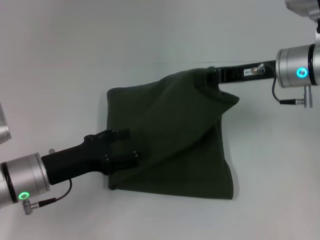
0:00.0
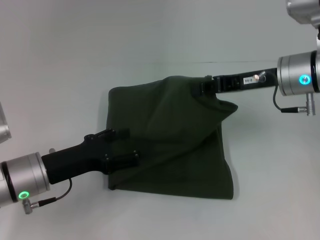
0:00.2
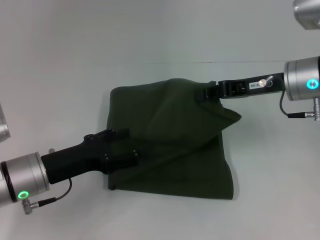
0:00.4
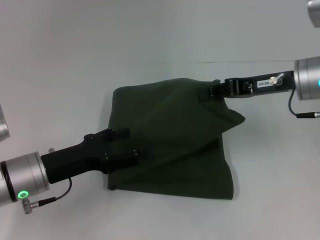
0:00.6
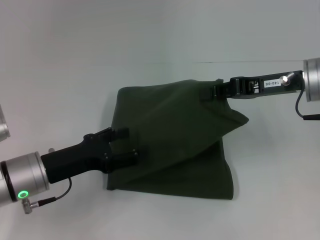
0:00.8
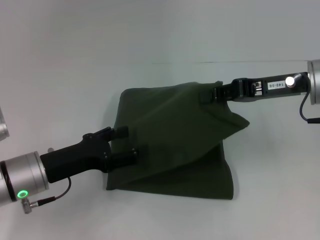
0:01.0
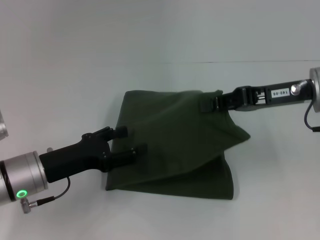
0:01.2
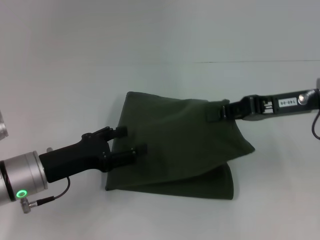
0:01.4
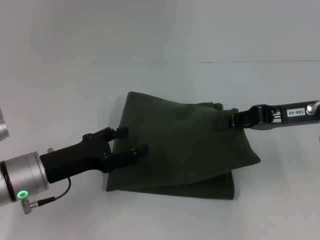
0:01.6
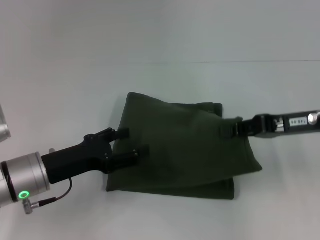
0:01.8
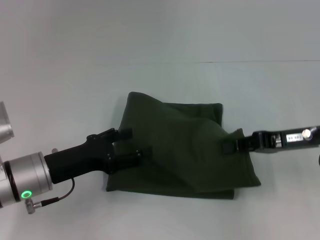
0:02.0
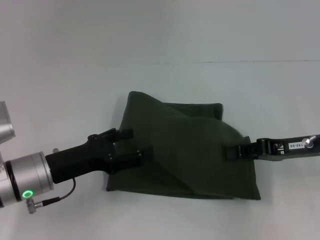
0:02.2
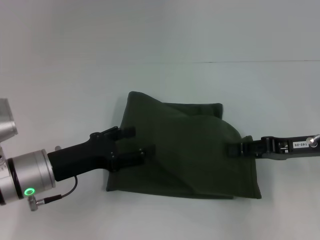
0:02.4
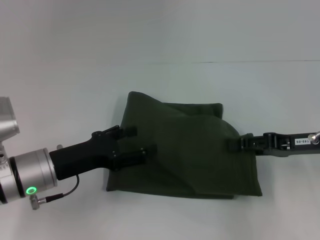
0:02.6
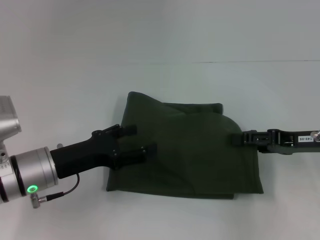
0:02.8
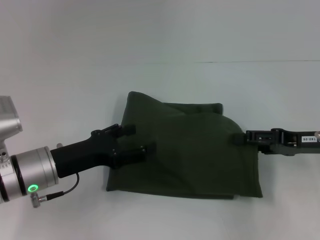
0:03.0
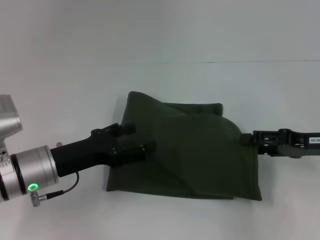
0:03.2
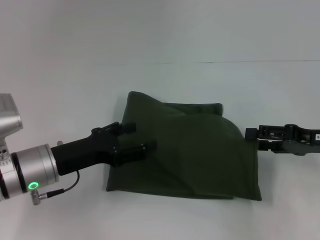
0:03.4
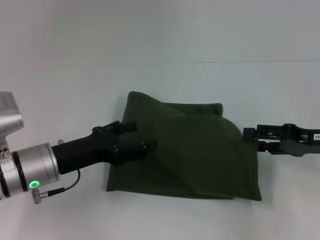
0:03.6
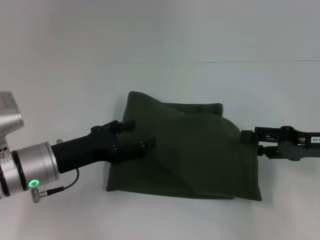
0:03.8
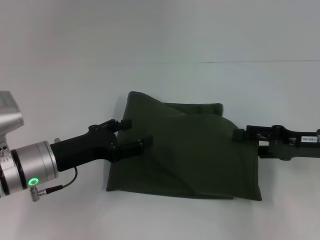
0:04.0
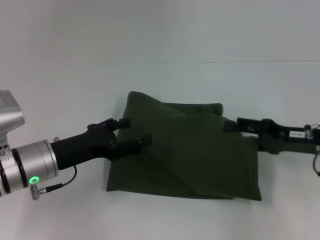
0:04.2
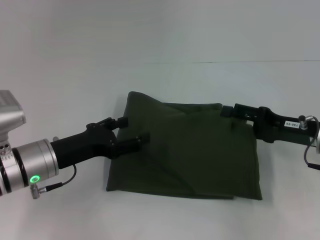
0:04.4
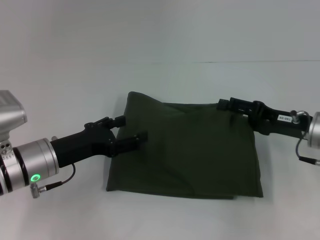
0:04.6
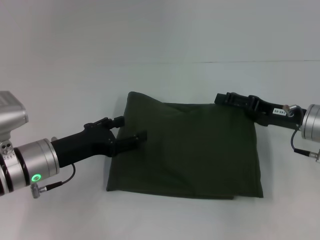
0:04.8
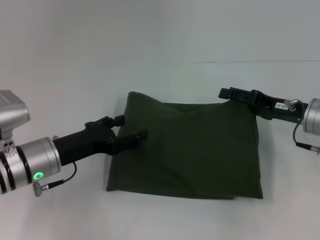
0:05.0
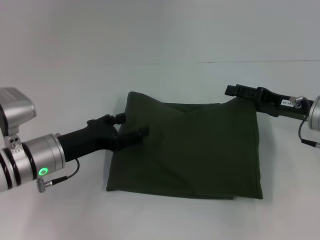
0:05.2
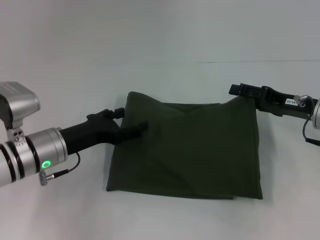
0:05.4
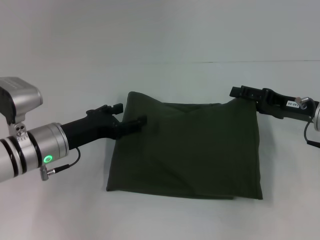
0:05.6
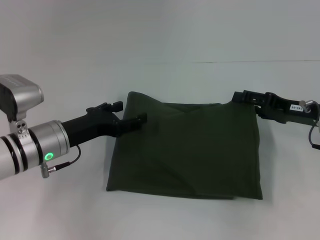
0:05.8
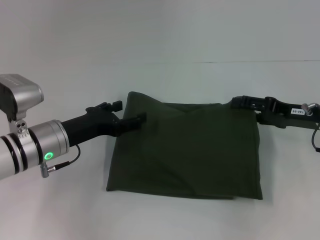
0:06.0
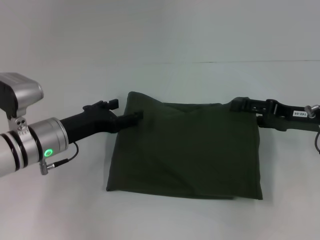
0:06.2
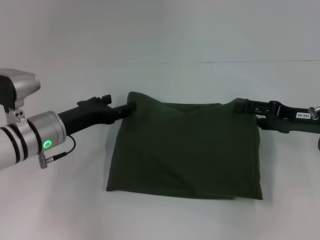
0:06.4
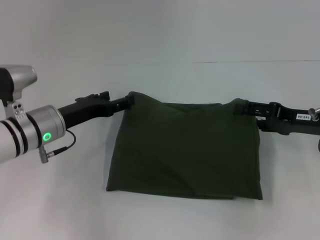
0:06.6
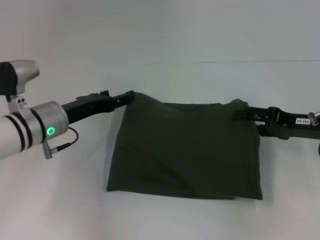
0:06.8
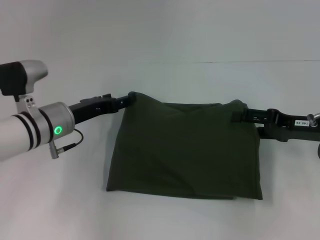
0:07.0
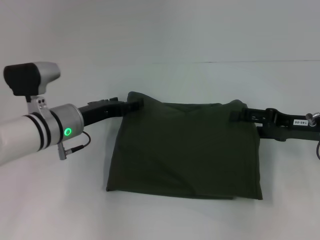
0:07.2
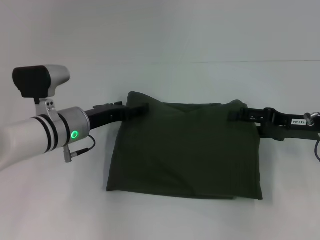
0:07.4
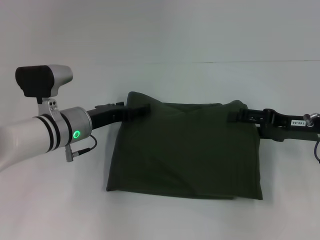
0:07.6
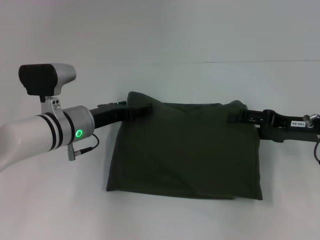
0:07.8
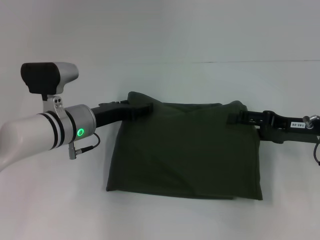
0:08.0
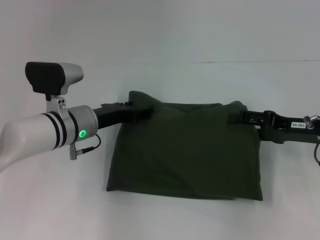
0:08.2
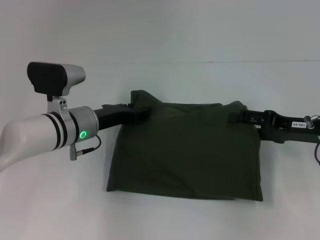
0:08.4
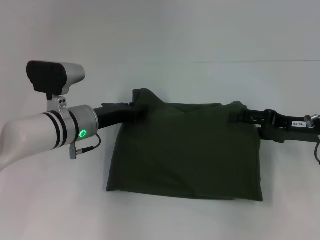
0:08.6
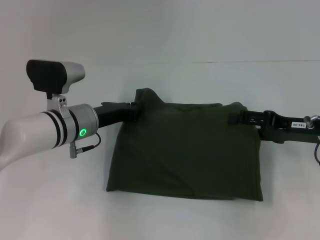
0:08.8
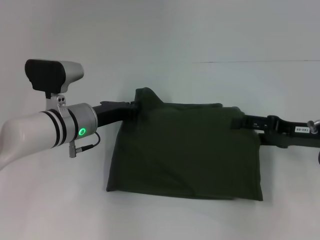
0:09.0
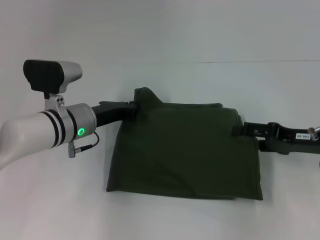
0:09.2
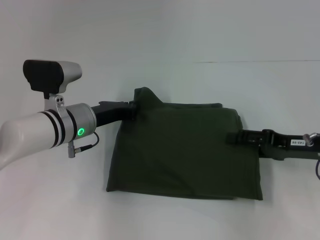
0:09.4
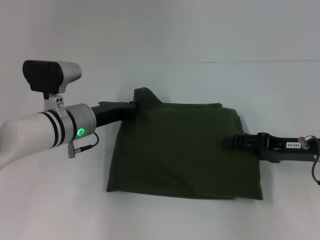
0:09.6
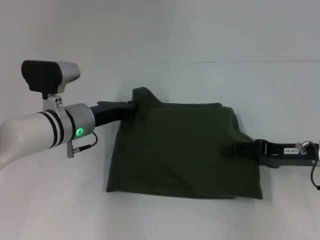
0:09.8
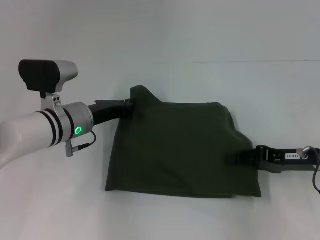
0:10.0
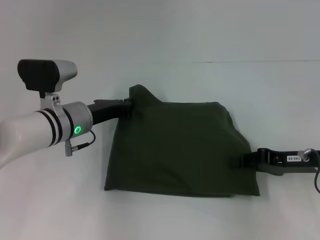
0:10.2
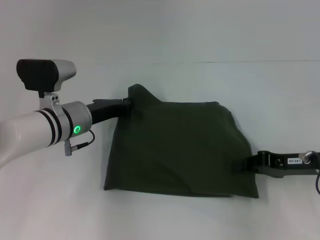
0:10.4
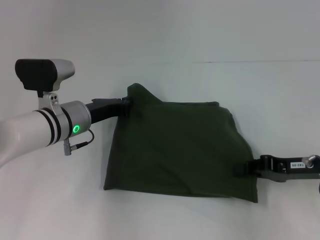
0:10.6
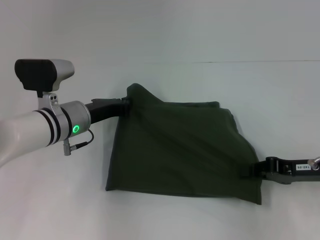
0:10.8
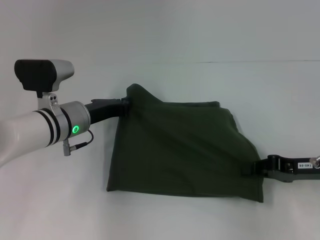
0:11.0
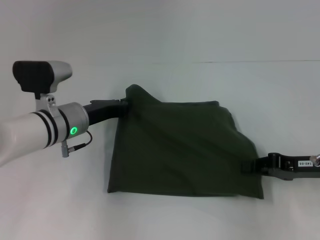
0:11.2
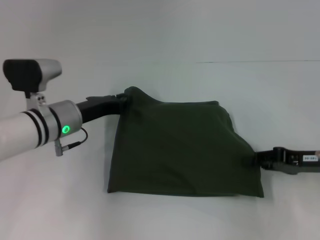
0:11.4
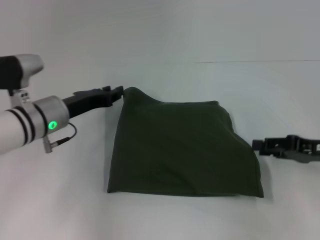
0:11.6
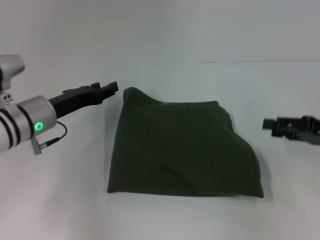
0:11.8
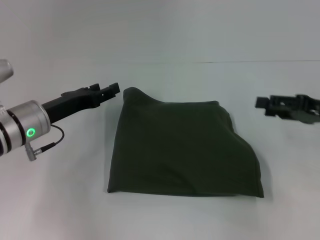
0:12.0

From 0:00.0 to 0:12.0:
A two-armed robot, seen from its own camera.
From 0:00.0 to 0:01.6: The right gripper moves backward, some 5 cm.
From 0:01.6 to 0:03.0: The right gripper is displaced downward by roughly 5 cm, and opens its fingers.
From 0:03.0 to 0:06.0: The grippers stay close to where they were, moving slightly.
From 0:06.0 to 0:07.6: The left gripper ends up some 5 cm from where it was.
From 0:07.6 to 0:09.0: The left gripper closes its fingers.
From 0:09.0 to 0:10.4: The right gripper closes up.
From 0:10.4 to 0:12.0: The right gripper heads upward, covering about 5 cm, and opens. The left gripper is displaced to the left by about 5 cm, and opens.

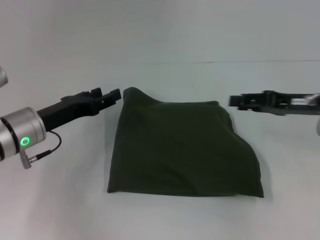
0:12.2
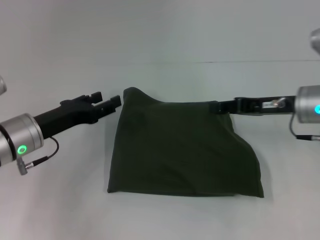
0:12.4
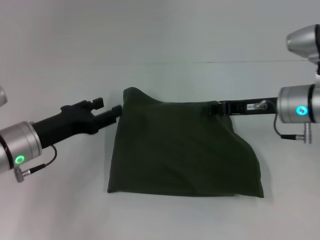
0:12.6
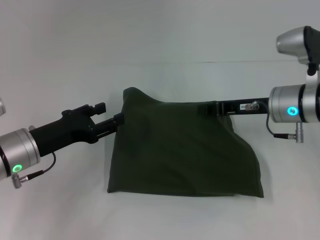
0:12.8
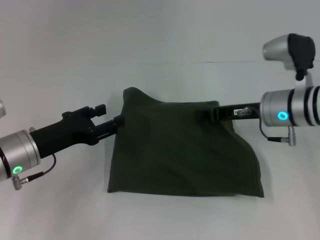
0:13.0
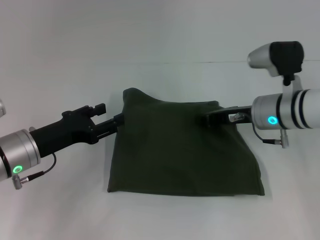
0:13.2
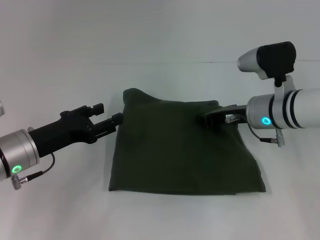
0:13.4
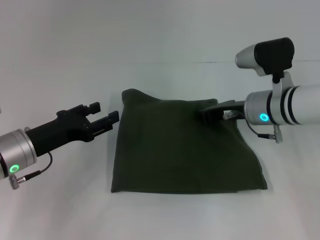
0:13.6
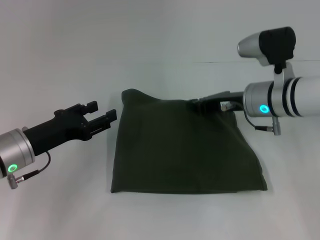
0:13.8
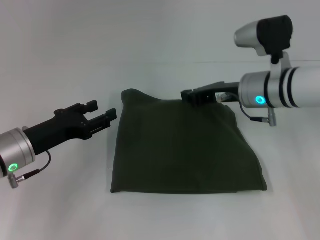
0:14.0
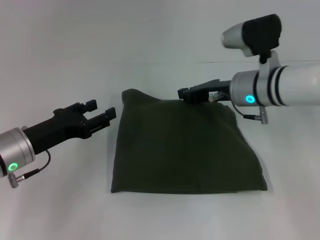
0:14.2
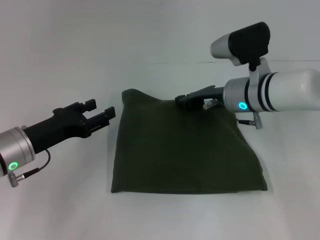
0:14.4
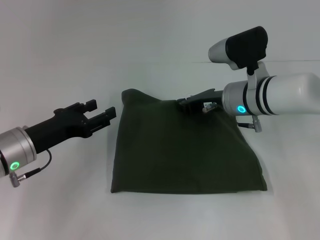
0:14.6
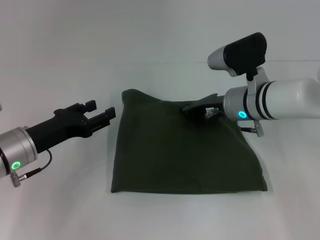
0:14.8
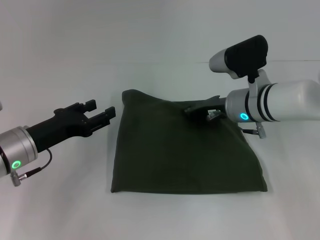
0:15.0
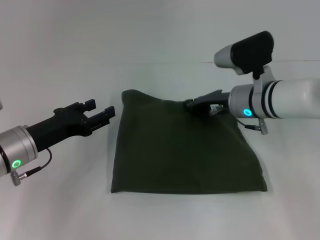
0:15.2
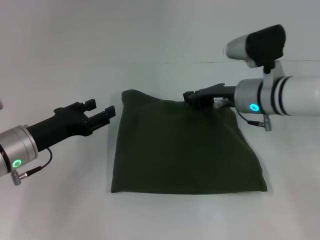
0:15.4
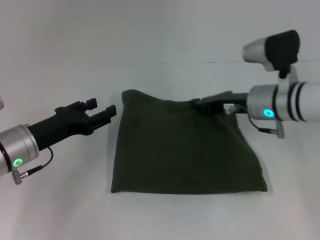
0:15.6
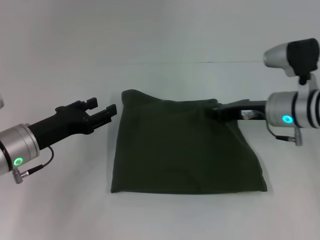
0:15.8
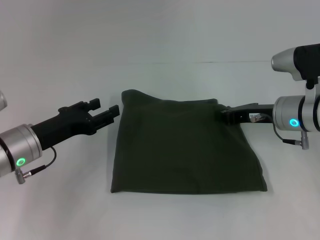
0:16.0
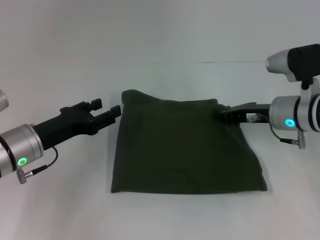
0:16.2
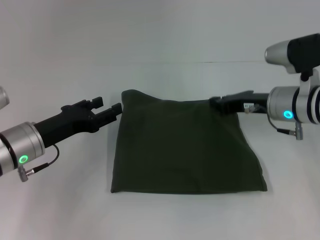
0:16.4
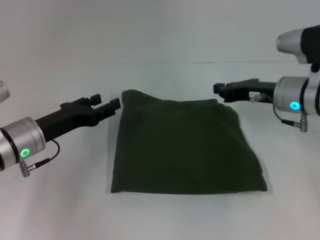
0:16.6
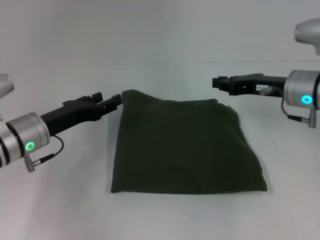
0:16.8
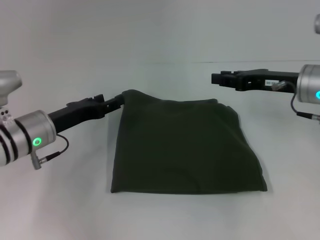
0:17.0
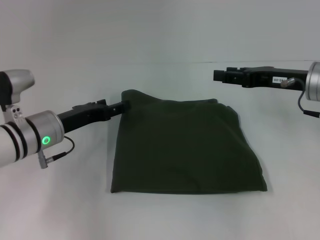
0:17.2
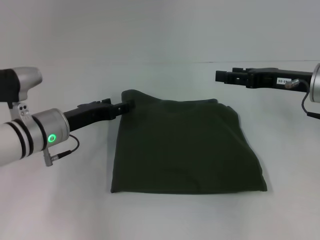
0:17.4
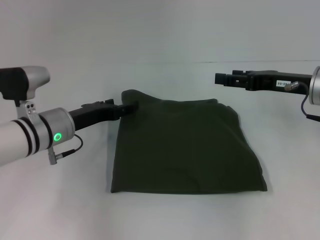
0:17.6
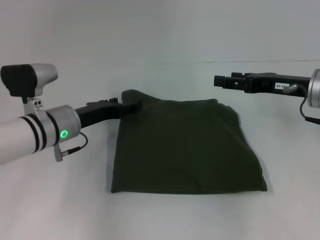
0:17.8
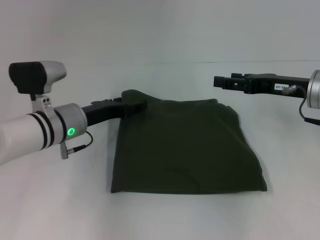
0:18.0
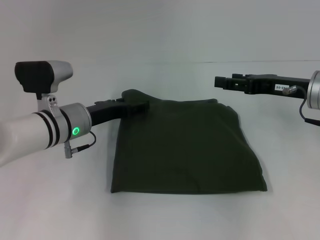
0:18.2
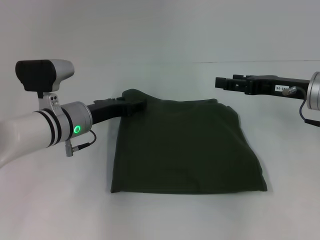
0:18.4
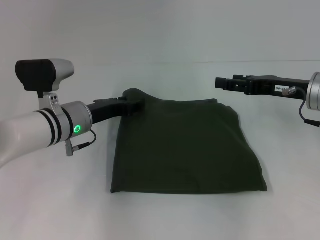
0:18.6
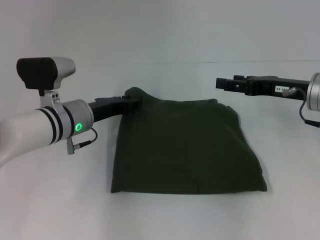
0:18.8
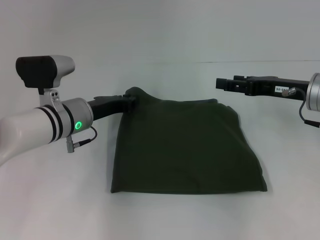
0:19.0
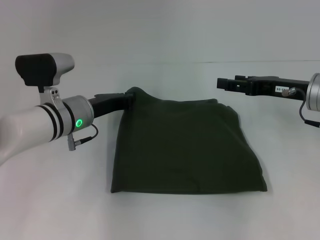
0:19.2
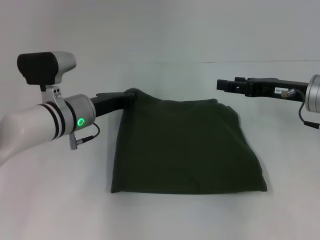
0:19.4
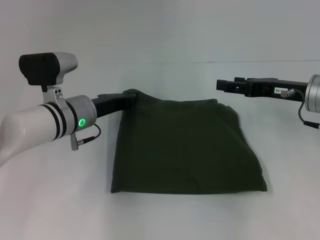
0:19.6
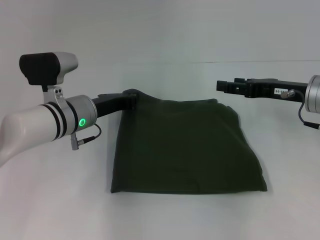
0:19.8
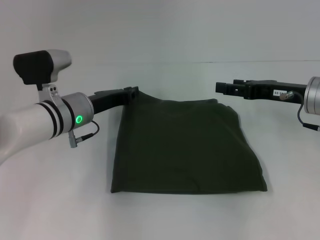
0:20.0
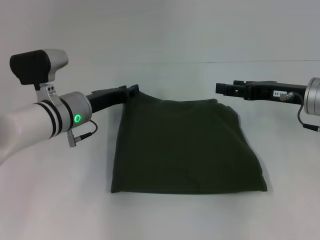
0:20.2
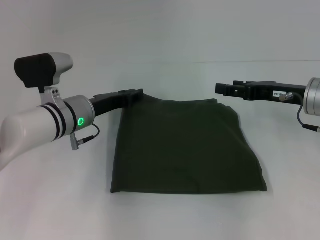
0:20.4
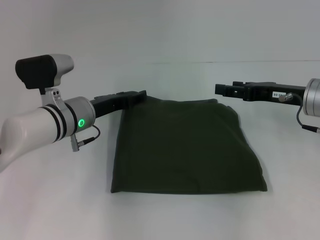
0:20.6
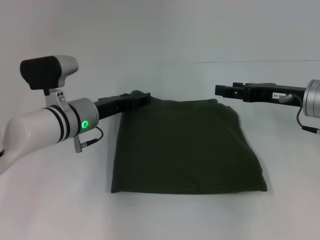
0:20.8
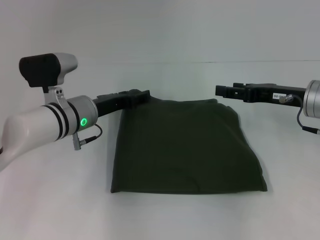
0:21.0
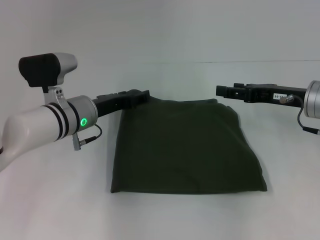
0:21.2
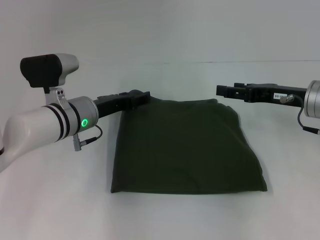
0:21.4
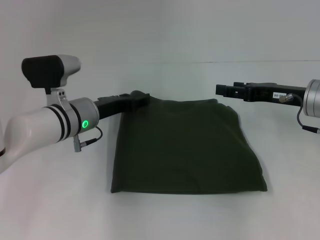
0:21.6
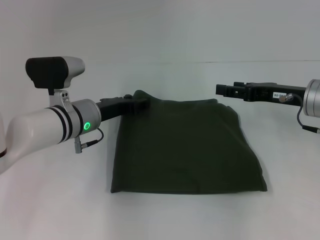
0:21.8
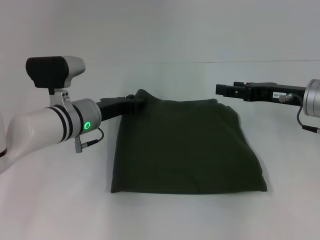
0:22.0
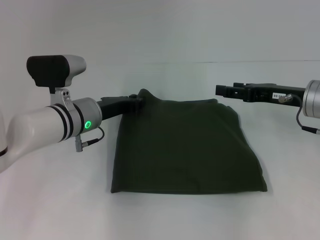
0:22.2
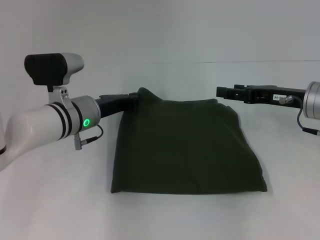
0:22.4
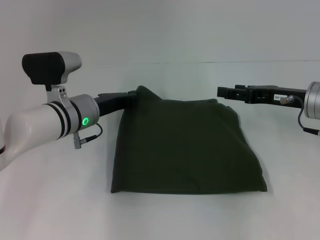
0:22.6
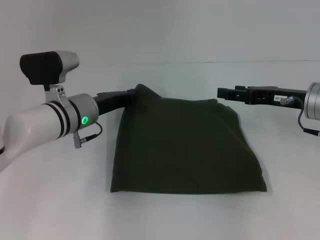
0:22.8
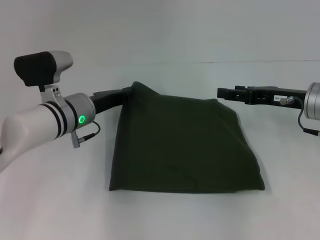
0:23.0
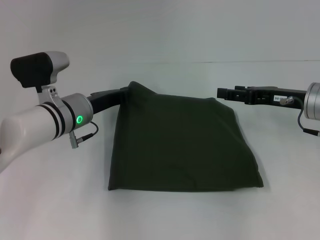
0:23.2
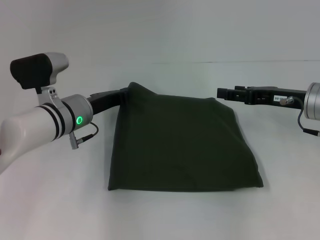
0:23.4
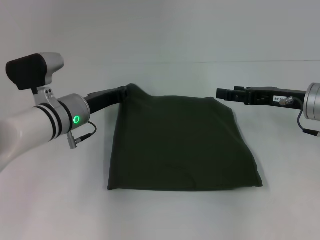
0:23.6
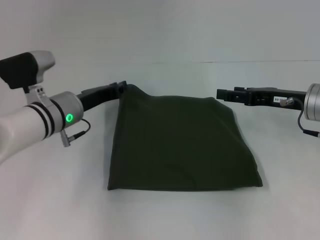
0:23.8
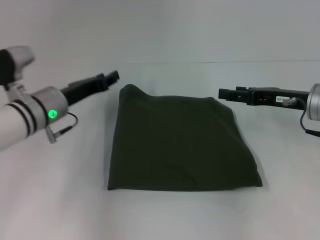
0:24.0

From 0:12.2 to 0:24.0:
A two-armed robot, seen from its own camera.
From 0:12.2 to 0:13.6: The right gripper goes about 10 cm to the left, and closes.
From 0:13.6 to 0:15.2: The grippers stay close to where they were, moving slightly.
From 0:15.2 to 0:16.6: The right gripper moves to the right, some 5 cm.
From 0:16.6 to 0:18.2: The left gripper heads to the right, covering roughly 5 cm. The right gripper opens.
From 0:18.2 to 0:19.6: The left gripper closes its fingers.
From 0:19.6 to 0:21.0: The left gripper opens.
From 0:21.0 to 0:22.6: The left gripper closes its fingers.
From 0:22.6 to 0:24.0: The grippers move only a little.
